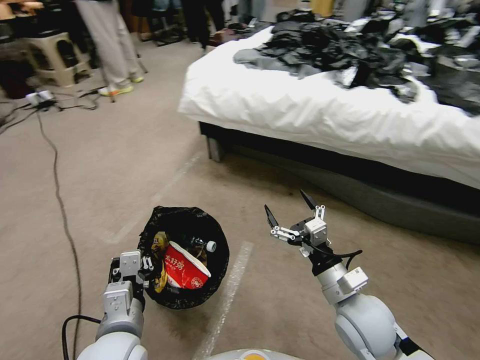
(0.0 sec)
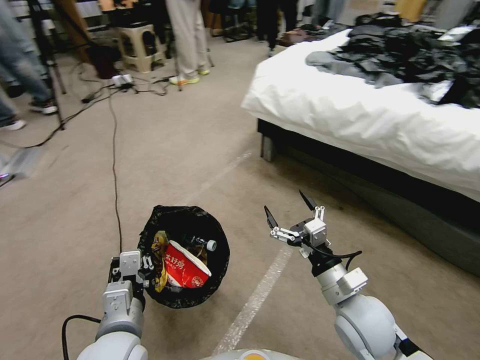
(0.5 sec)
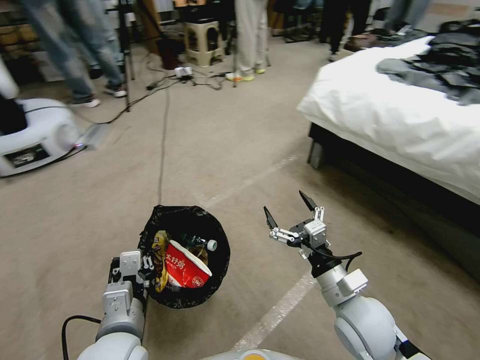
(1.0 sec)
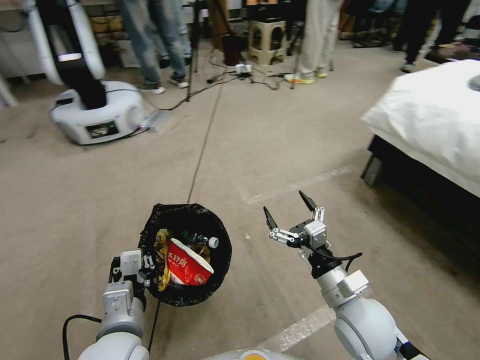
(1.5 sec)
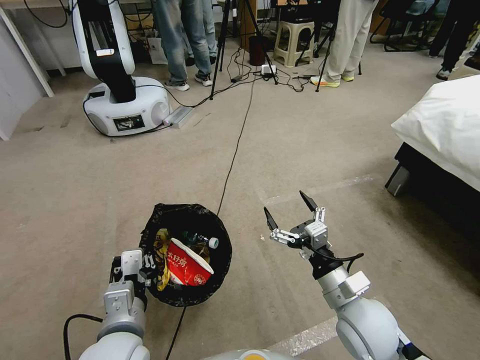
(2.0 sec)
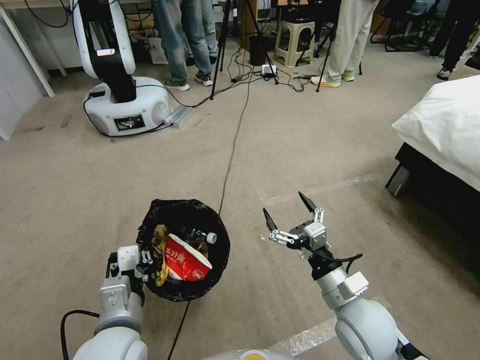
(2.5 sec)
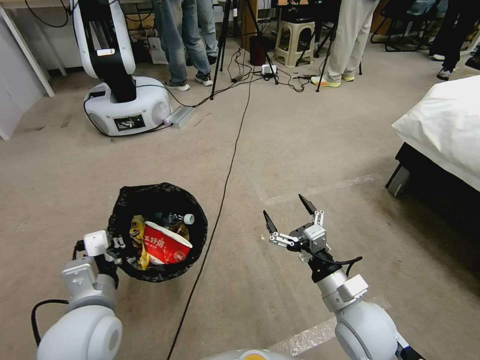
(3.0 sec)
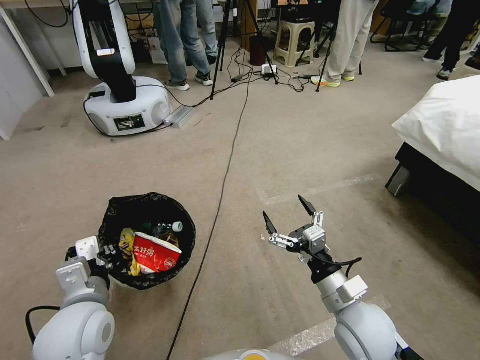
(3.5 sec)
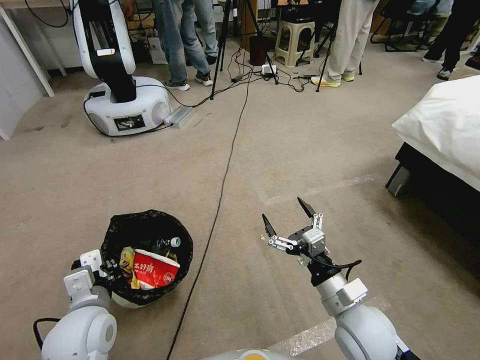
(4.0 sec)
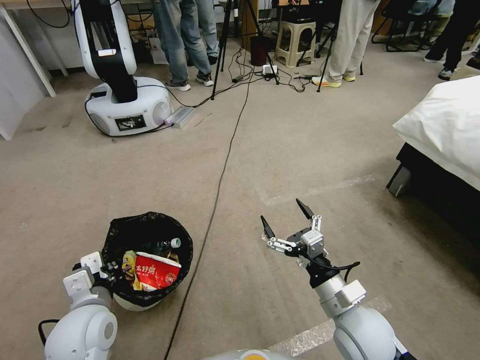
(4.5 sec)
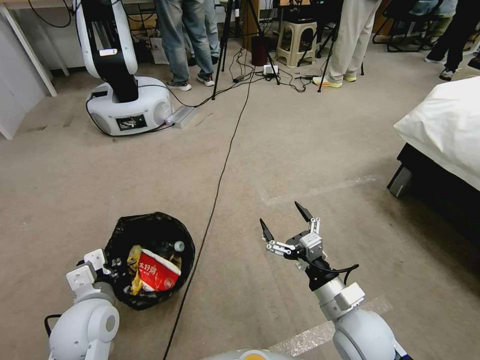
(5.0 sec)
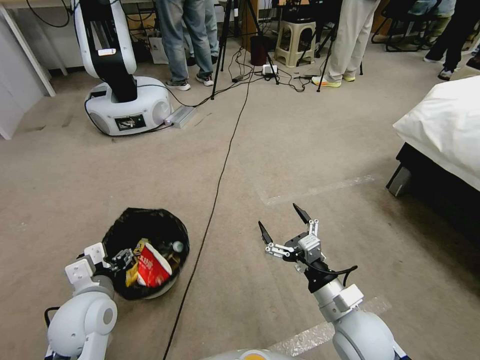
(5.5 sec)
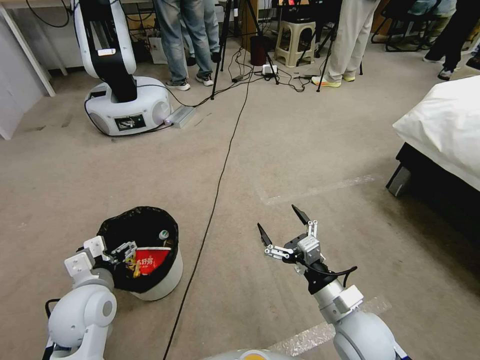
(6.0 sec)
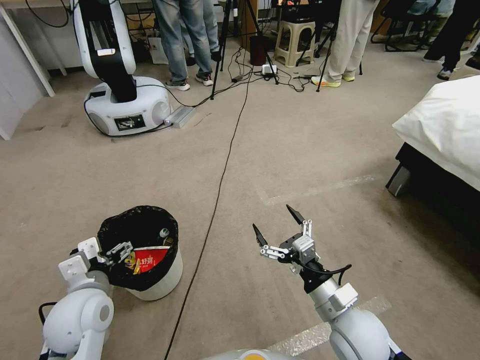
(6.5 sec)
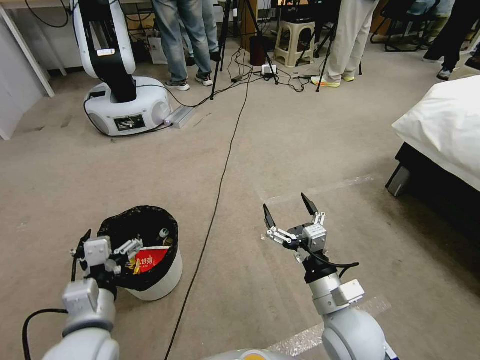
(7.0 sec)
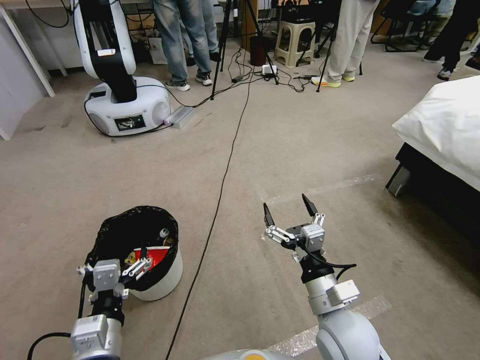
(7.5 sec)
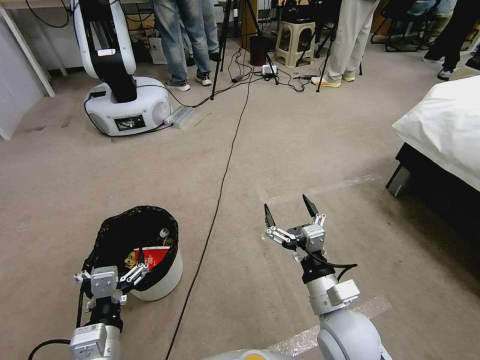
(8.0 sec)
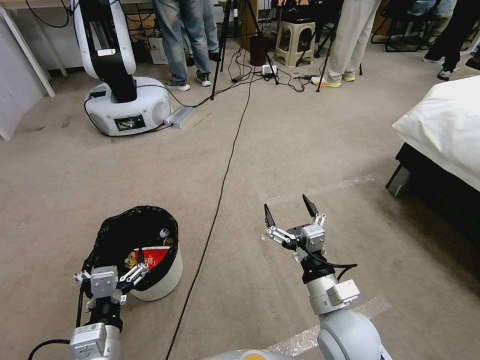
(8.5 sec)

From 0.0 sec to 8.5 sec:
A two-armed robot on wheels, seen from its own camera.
Task of the whole recording: Pick up the trash bin, then pick up the garbage from the floor and place it into the trash bin.
From 2.0 sec to 4.0 sec: The left gripper moves to the left, about 10 cm.
From 4.0 sec to 6.5 sec: The left gripper opens its fingers.
From 6.5 sec to 8.5 sec: The left gripper is displaced backward and to the right by approximately 15 cm.
